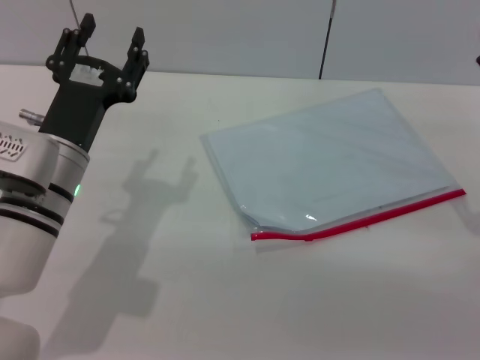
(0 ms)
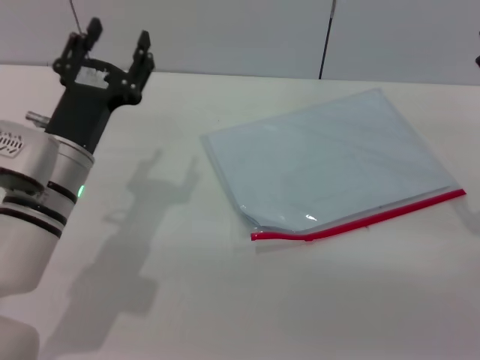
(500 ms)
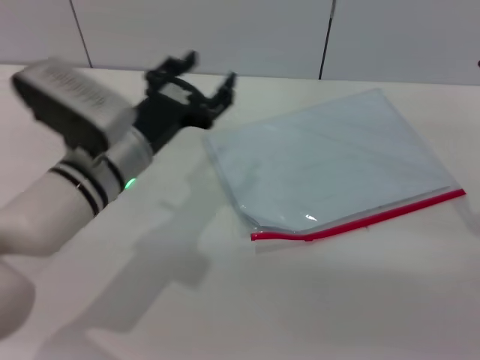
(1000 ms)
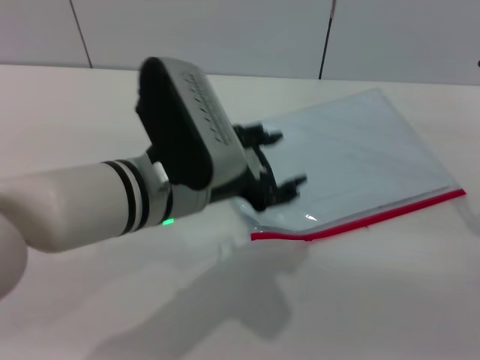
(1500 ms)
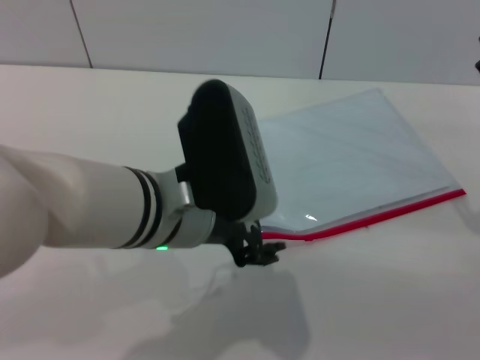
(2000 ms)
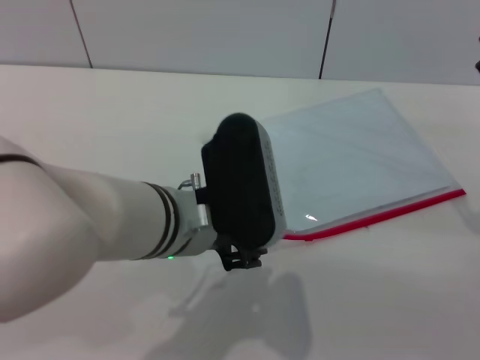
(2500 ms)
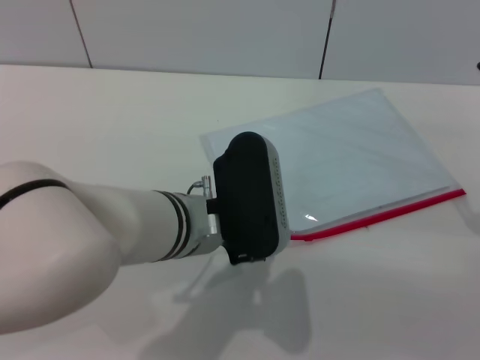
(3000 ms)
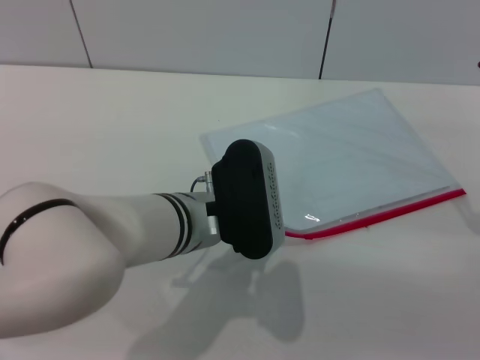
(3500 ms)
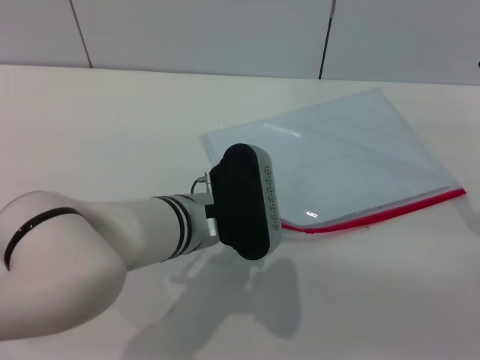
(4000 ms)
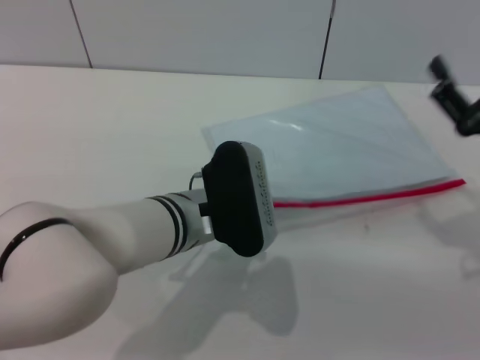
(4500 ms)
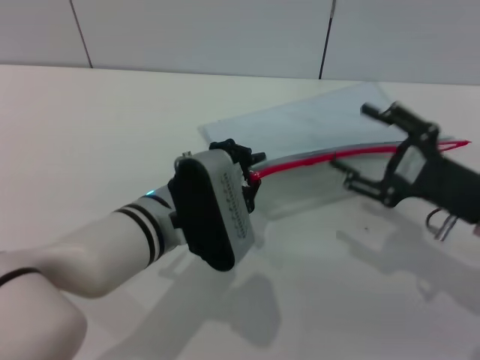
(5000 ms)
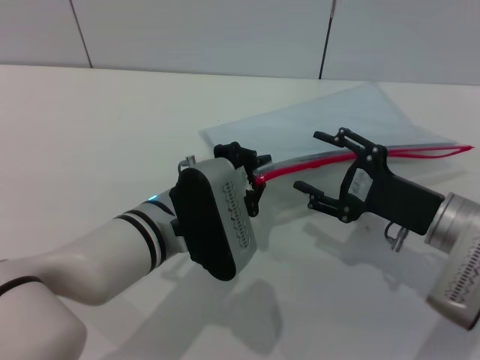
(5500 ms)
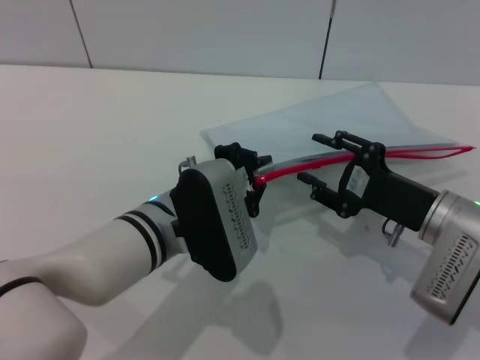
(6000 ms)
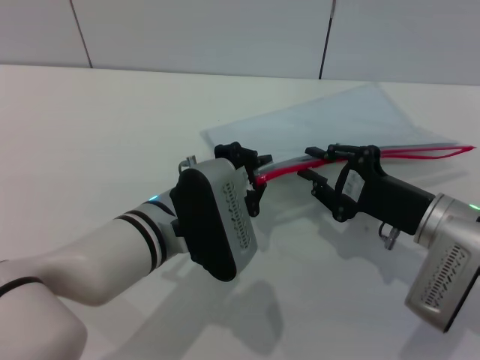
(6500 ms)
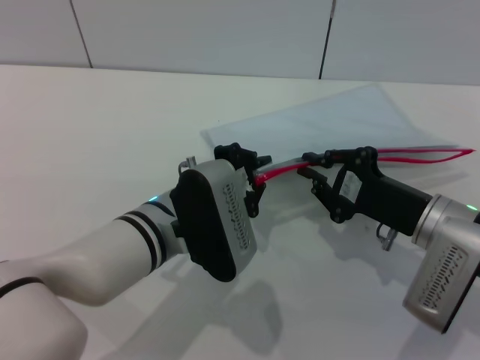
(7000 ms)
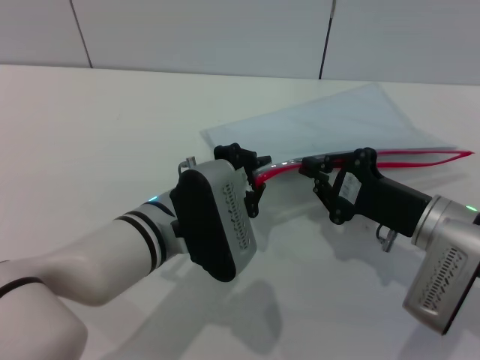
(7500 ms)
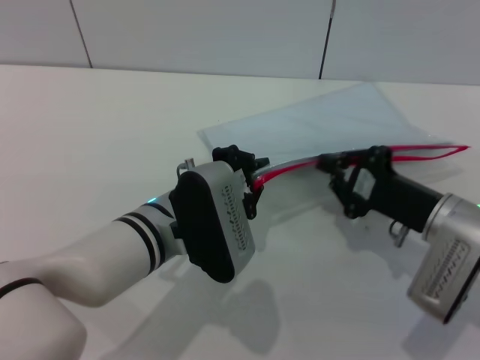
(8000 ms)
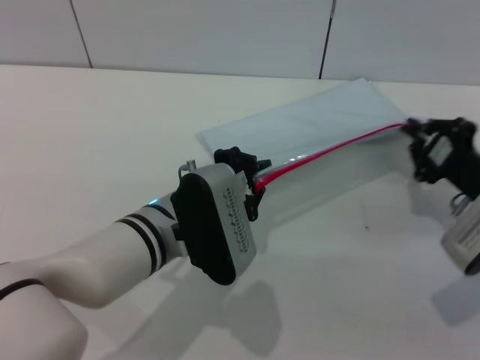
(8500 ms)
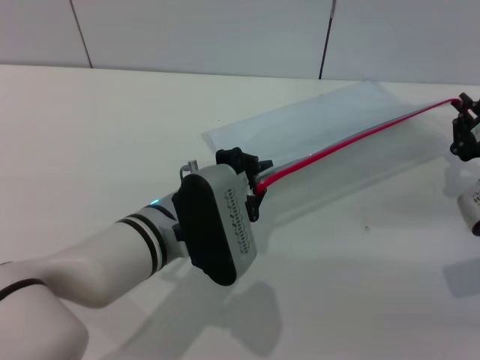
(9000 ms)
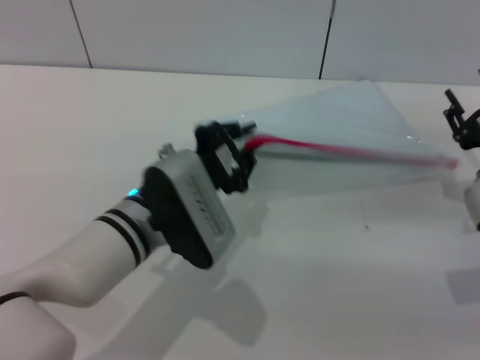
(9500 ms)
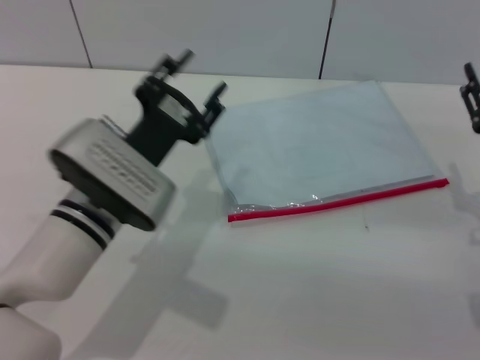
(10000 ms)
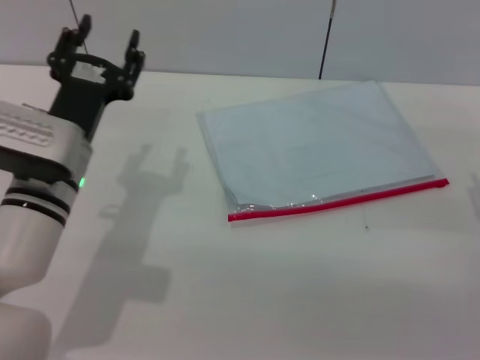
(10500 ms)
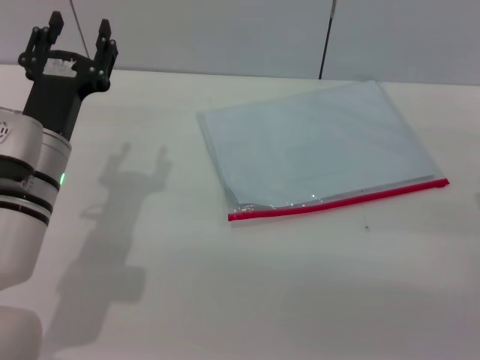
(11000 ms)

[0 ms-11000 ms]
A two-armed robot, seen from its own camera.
Step, 0 ms to 4500 ms: Pick up the transparent plastic bag with the left gripper.
Step, 5500 ms to 9000 ms: Pulling up the zipper on the transparent plastic bag with the right gripper to close it.
0 ms to 2000 ms: The left gripper heads to the right and upward, covering roughly 15 cm.
2000 ms to 3500 ms: The left gripper moves downward, some 5 cm.
3500 ms to 5500 ms: The left gripper closes its fingers; the right gripper moves to the left, approximately 5 cm.
5500 ms to 7500 ms: The right gripper closes.
7500 ms to 9000 ms: The right gripper travels to the right by about 10 cm.
9000 ms to 11000 ms: The left gripper heads to the left, covering roughly 10 cm, and opens up. The right gripper shifts by approximately 5 cm, and opens up.

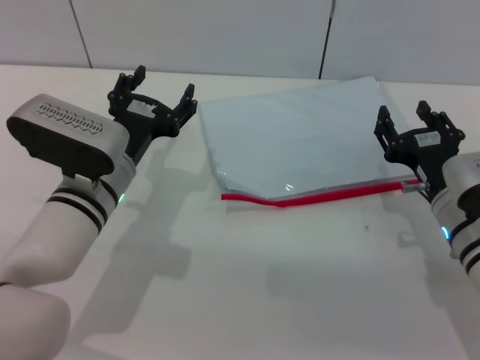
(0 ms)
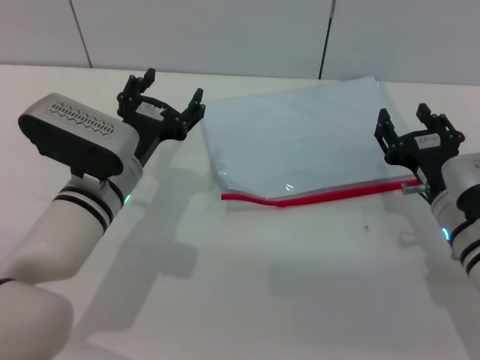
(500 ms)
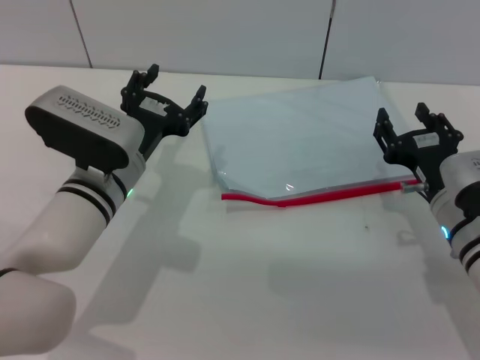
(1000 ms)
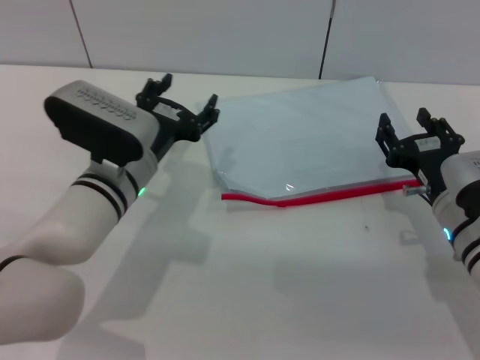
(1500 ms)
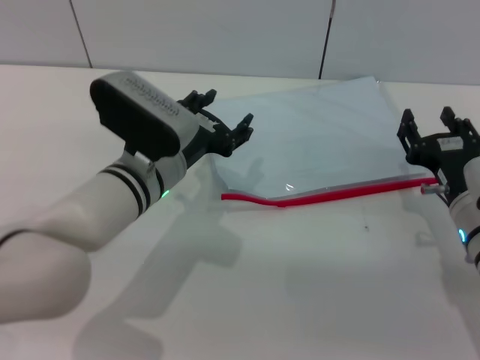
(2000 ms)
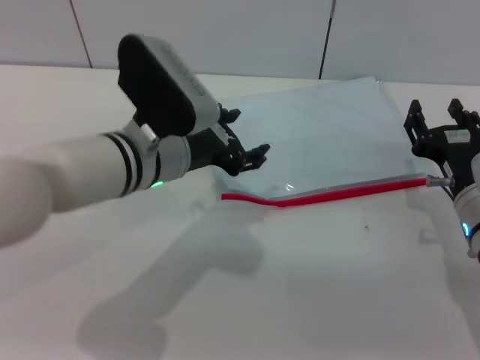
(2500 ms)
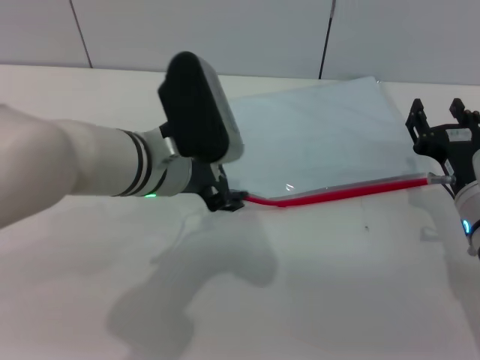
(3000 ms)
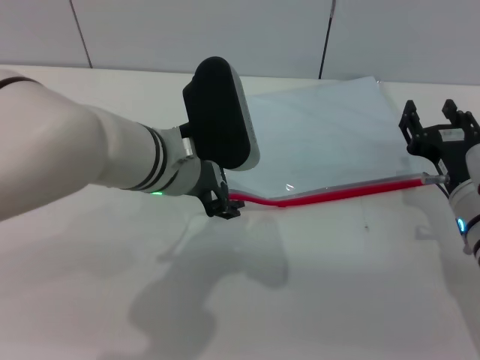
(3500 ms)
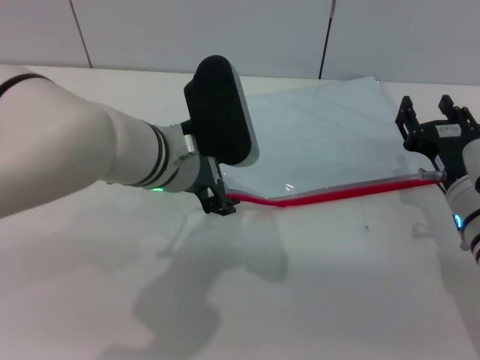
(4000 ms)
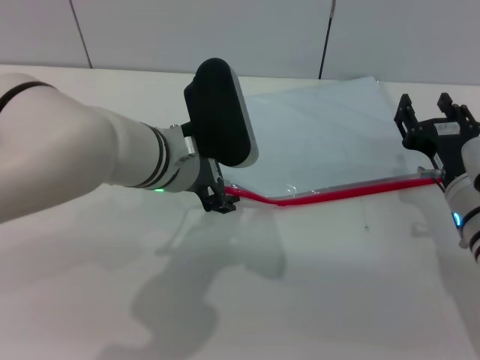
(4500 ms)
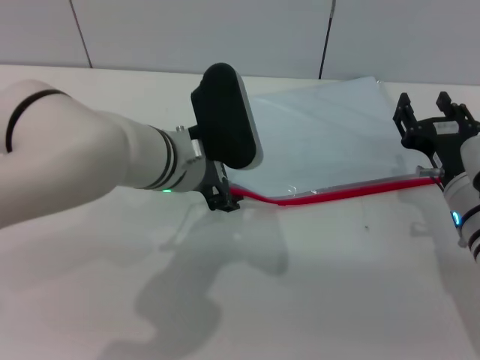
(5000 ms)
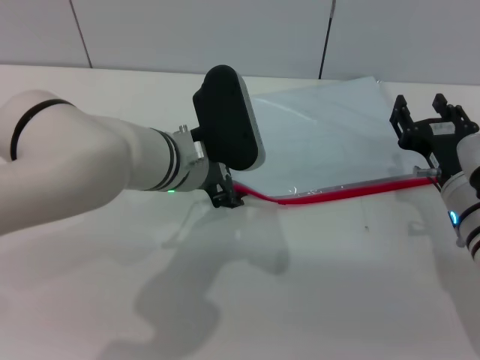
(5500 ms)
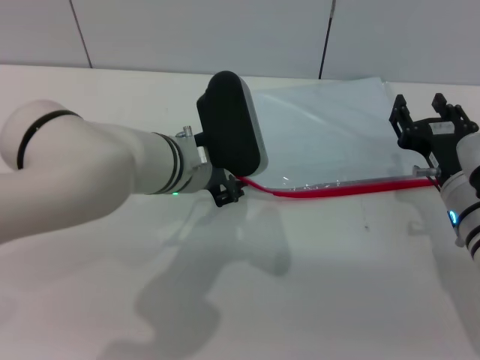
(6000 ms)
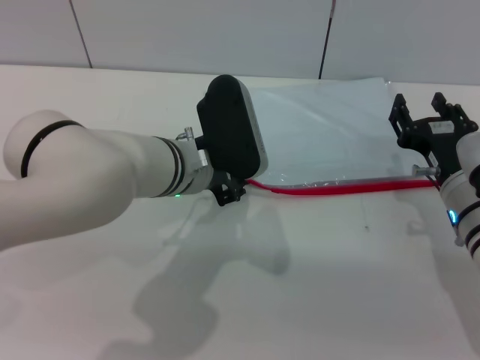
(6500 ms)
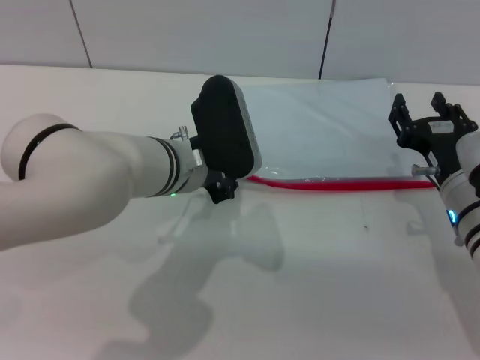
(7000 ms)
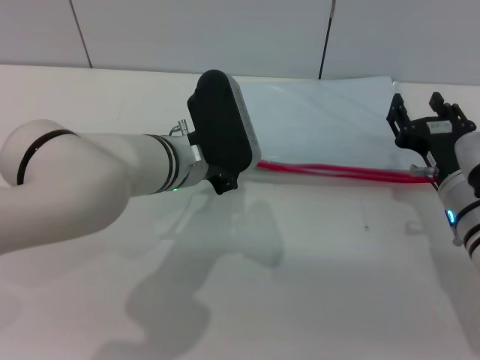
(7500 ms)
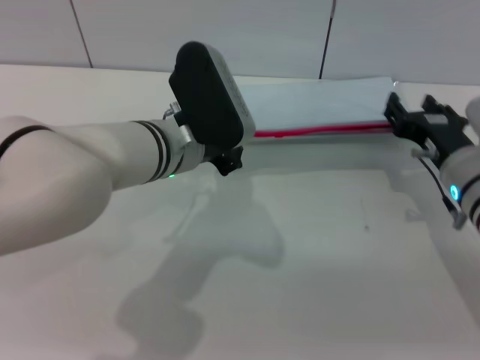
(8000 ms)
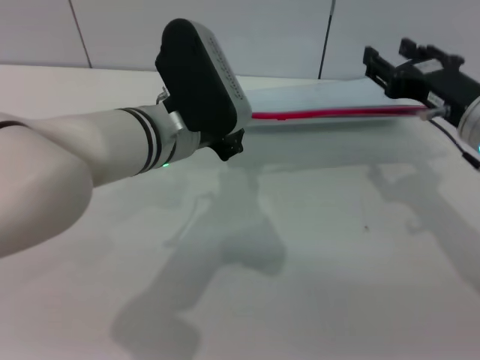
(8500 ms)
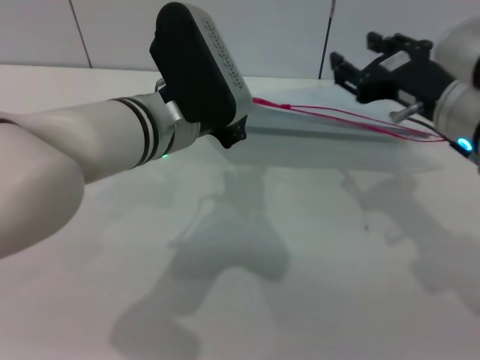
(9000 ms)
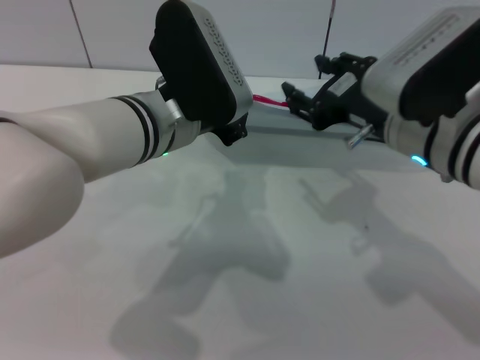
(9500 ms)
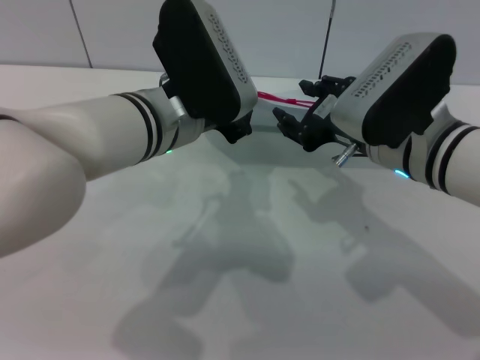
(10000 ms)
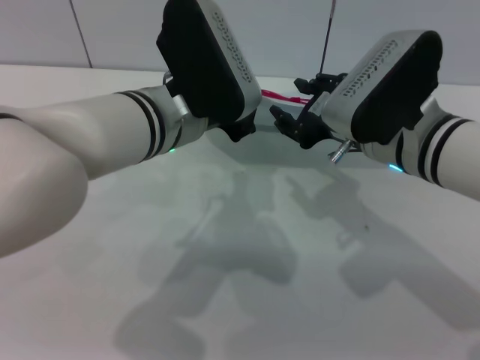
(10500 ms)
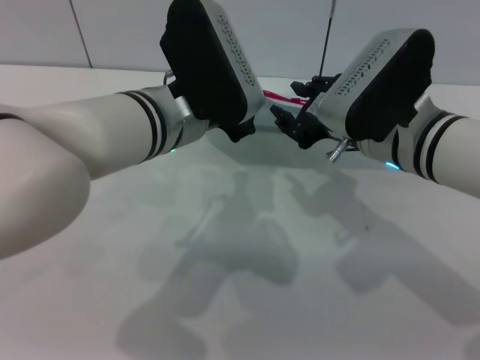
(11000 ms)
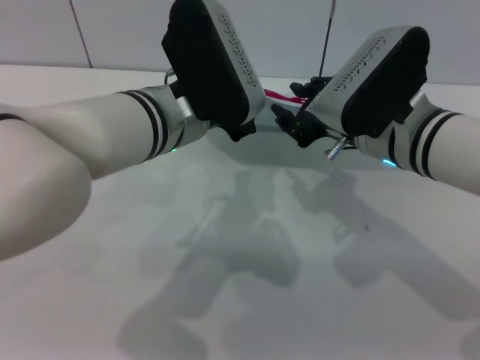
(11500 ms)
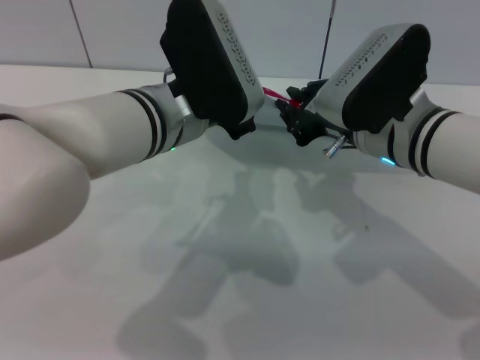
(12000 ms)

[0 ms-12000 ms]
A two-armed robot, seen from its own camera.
Step, 0 ms to 9000 ms: Pick up the transparent plastic bag with the left gripper.
2000 ms to 4000 ms: The left gripper shifts about 5 cm upward.
4000 ms to 6000 ms: The grippers move only a little.
6000 ms to 8000 ms: The left gripper closes up.
8000 ms to 10000 ms: The right gripper goes approximately 10 cm upward and to the left.
10000 ms to 12000 ms: The right gripper closes its fingers.

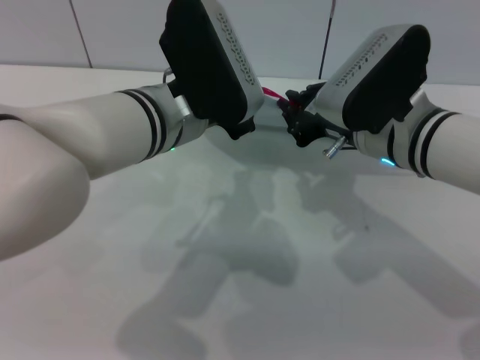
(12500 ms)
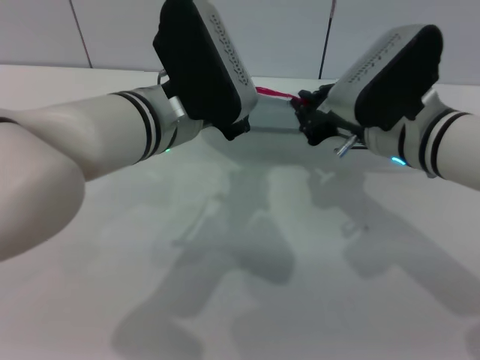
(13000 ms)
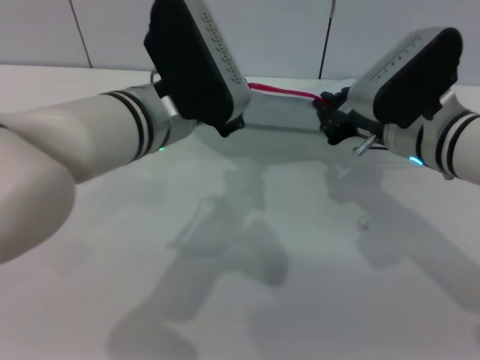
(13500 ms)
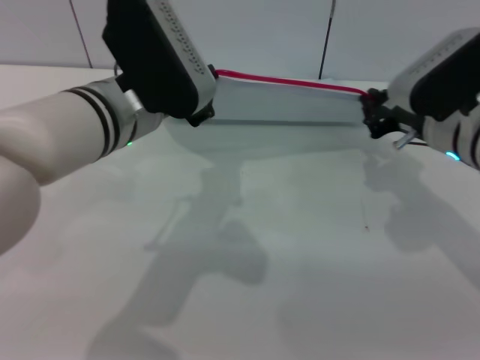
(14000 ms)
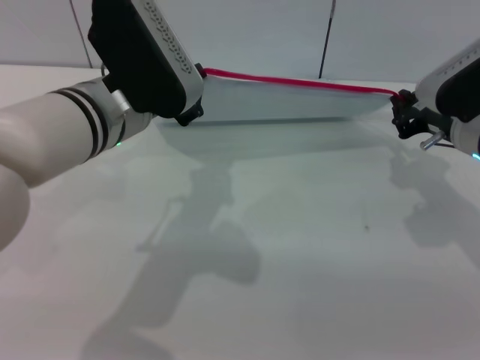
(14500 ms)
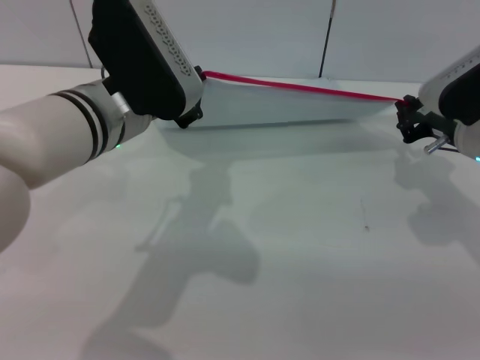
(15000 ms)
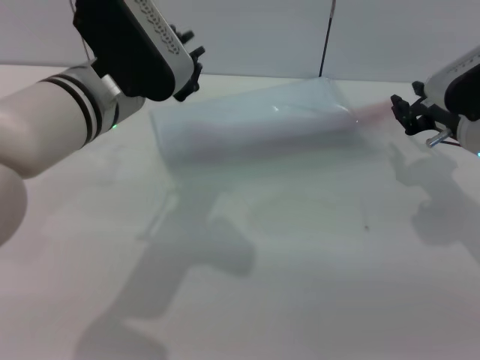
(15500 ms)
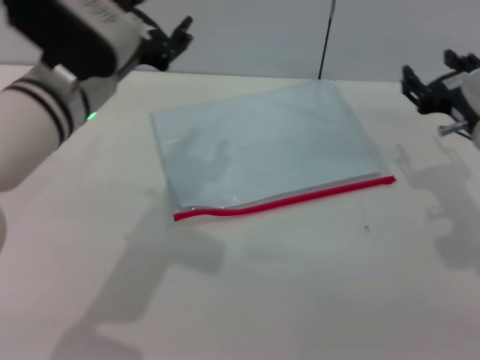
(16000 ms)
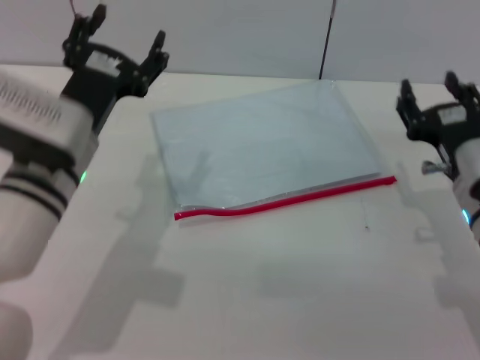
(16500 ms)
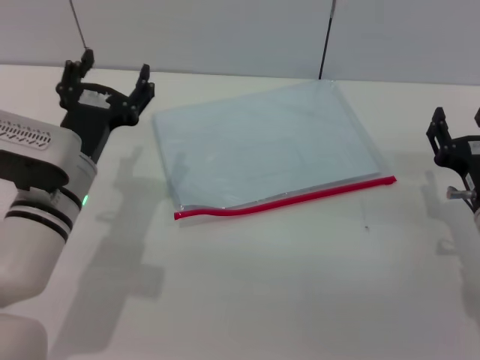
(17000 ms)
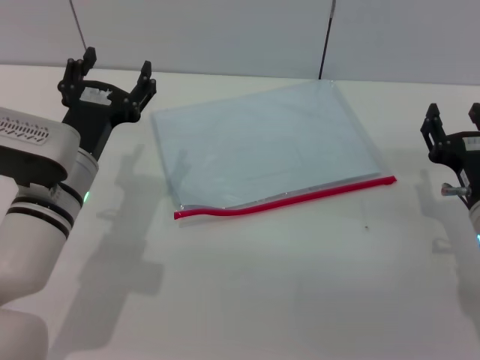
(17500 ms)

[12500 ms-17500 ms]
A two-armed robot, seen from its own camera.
Step, 12500 ms to 15000 ms: Pulling up the zipper on the transparent plastic bag with the right gripper to close it.
12500 ms to 15000 ms: The right gripper moves to the right, roughly 10 cm.
15000 ms to 17500 ms: The left gripper moves downward and to the left, some 10 cm, and opens; the right gripper goes roughly 10 cm backward and downward, and opens.
